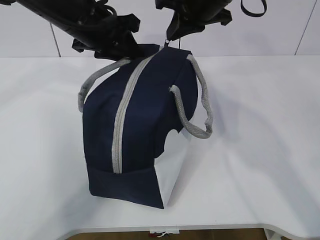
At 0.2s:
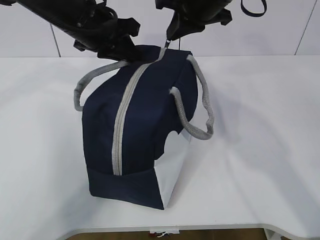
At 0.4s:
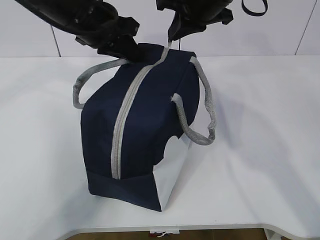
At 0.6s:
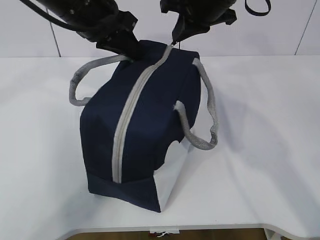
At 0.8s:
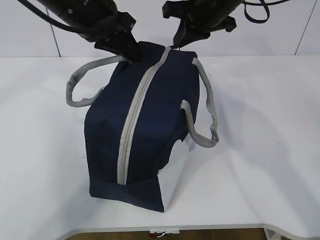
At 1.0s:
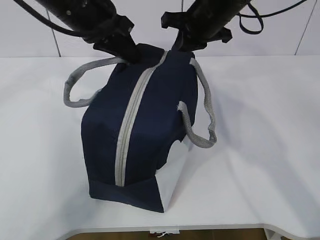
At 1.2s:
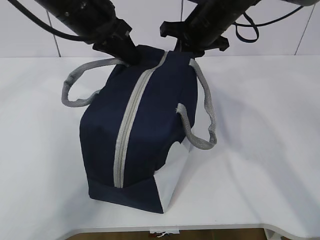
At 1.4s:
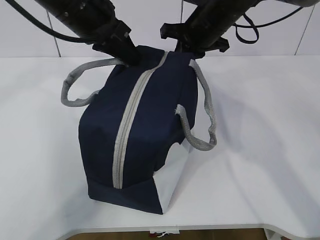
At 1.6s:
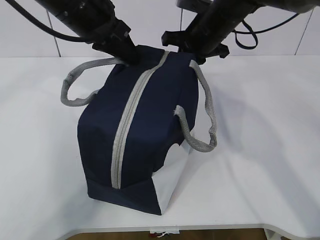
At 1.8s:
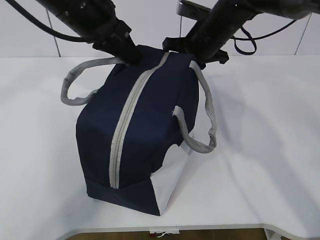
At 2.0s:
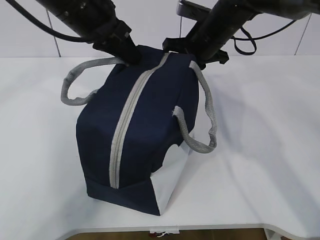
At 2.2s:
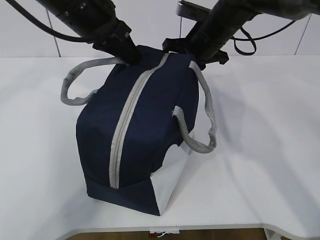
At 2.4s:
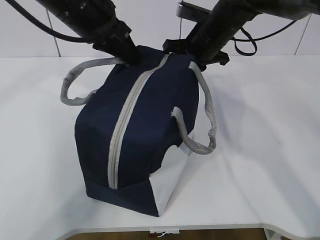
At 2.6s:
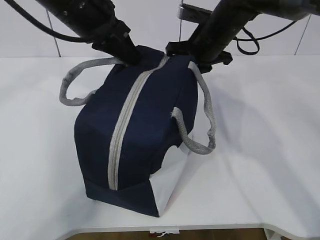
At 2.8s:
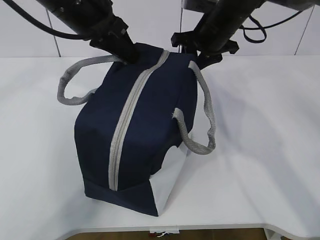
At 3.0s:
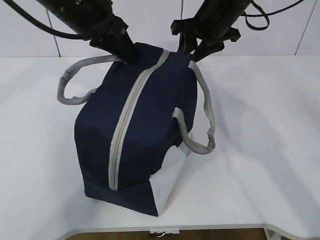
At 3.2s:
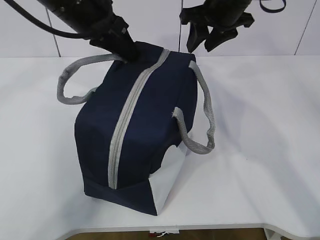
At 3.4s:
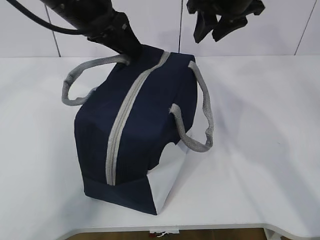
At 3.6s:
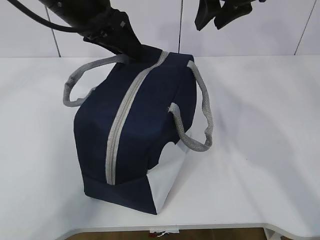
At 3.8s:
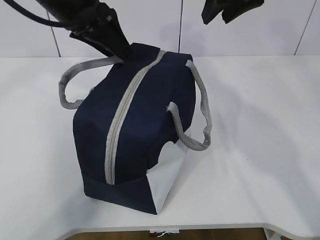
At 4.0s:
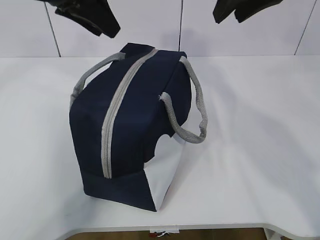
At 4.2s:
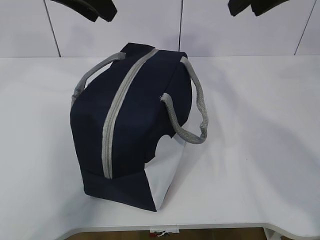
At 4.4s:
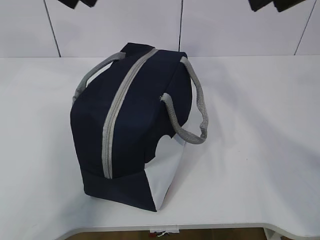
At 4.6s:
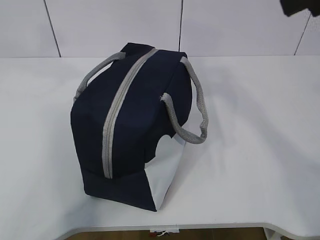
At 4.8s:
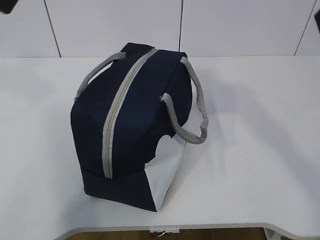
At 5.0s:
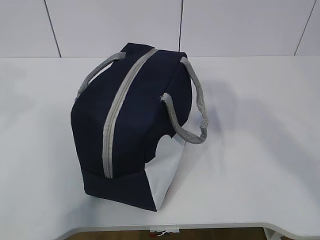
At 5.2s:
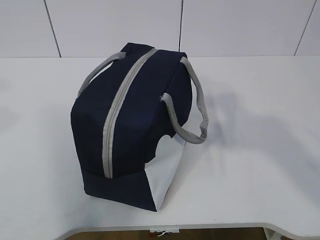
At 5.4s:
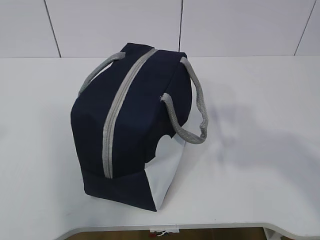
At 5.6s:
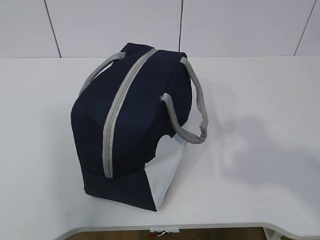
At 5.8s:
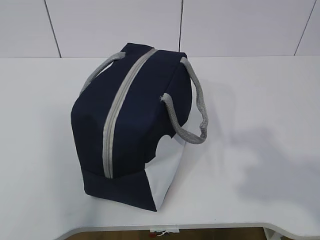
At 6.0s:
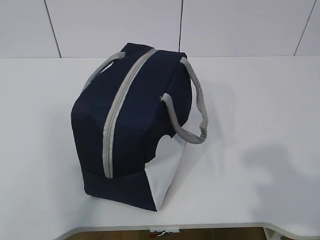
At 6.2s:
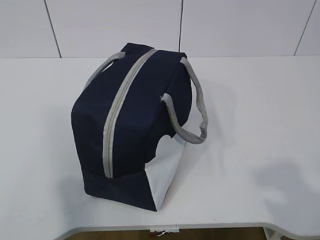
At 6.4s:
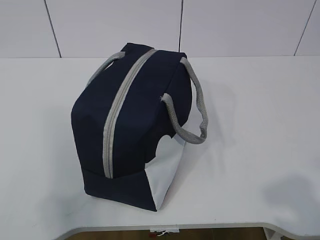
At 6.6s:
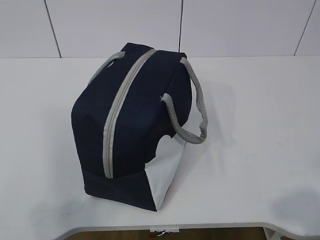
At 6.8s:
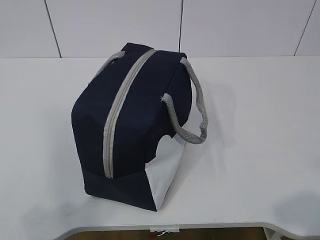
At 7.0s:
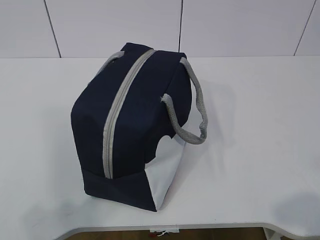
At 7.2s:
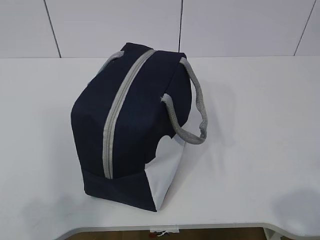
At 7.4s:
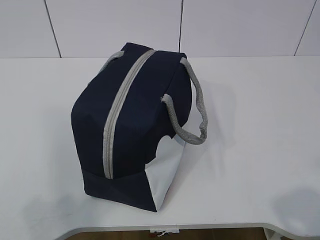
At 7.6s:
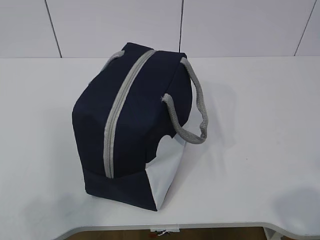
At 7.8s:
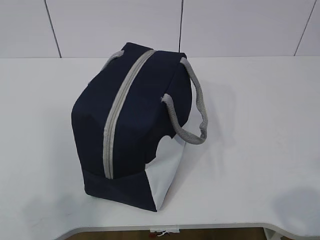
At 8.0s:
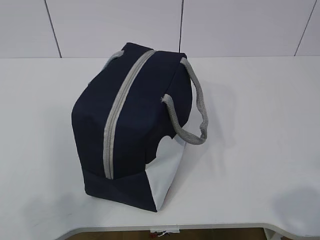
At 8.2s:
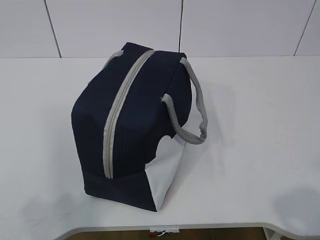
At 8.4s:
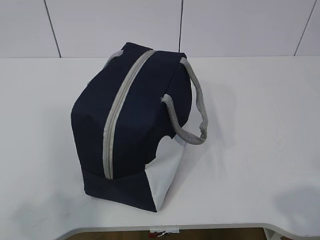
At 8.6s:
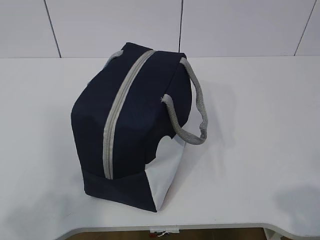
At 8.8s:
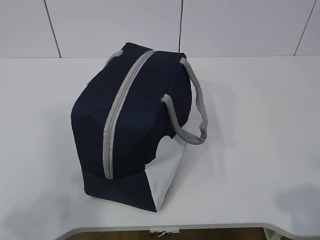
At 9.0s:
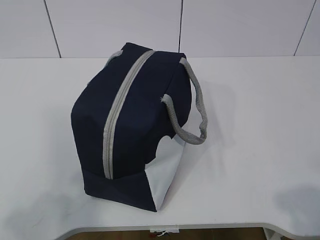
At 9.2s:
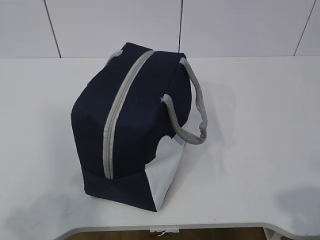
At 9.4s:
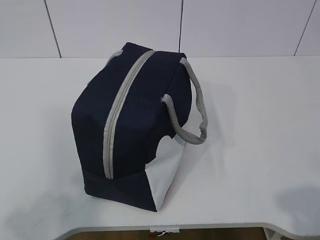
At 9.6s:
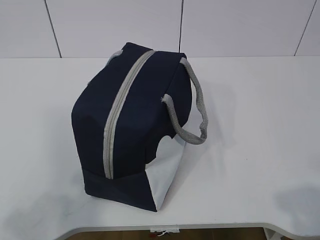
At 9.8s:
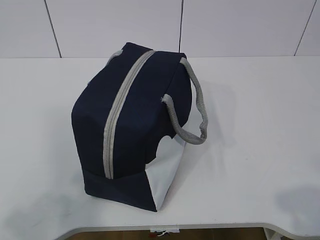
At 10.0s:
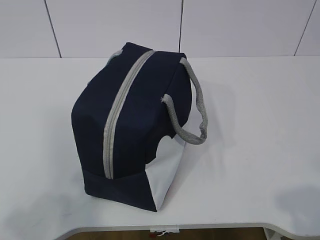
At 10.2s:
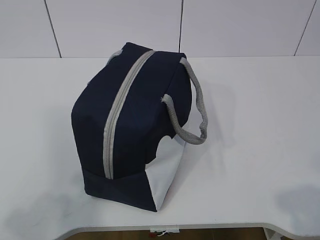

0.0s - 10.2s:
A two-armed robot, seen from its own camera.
0.0s - 1.4s: The right gripper travels downward by some 5 cm, while the left gripper closes its fingers.
1.4s - 3.0s: The right gripper opens.
3.0s - 4.4s: The right gripper is displaced backward and upward by roughly 25 cm, while the left gripper goes some 10 cm upward and to the left, and opens.
4.4s - 5.8s: The left gripper is displaced backward and to the left by some 35 cm, while the right gripper moves backward, roughly 25 cm.
5.8s - 7.2s: The right gripper travels downward and backward by about 10 cm; the left gripper moves downward, approximately 10 cm.
8.8s - 10.2s: Neither gripper changes place.

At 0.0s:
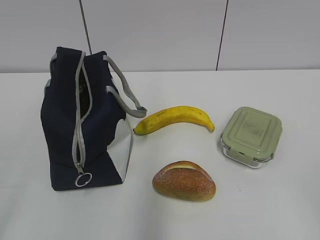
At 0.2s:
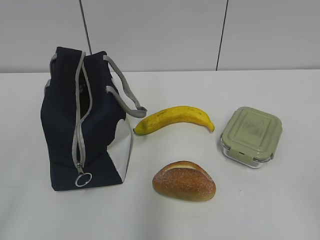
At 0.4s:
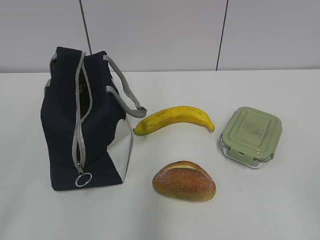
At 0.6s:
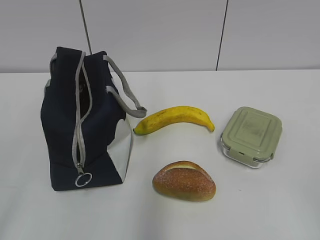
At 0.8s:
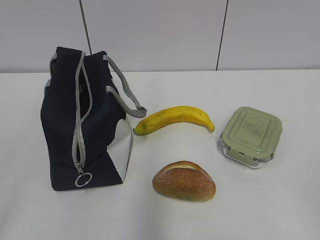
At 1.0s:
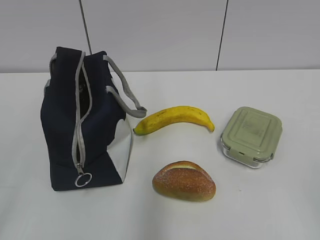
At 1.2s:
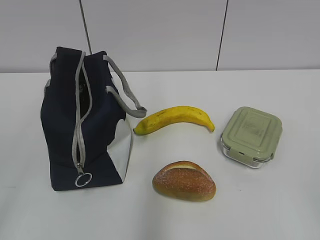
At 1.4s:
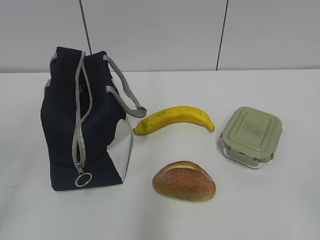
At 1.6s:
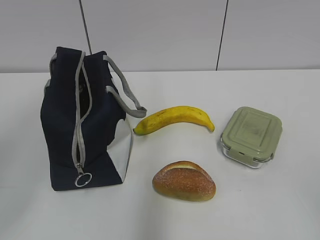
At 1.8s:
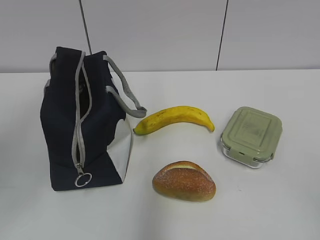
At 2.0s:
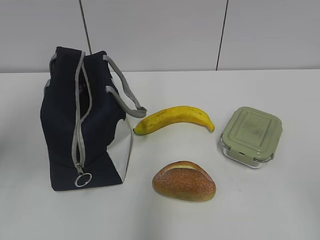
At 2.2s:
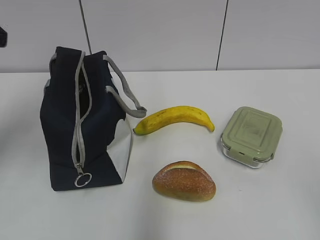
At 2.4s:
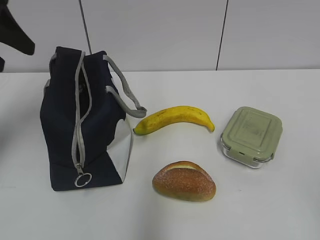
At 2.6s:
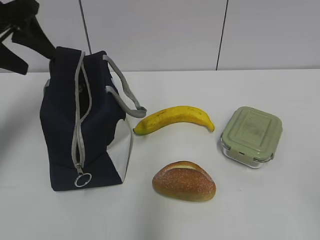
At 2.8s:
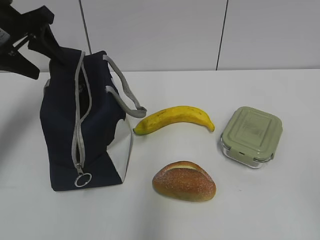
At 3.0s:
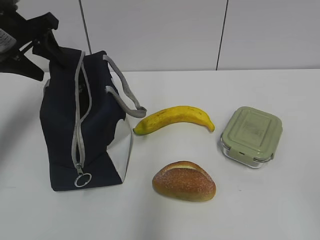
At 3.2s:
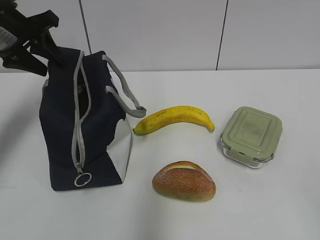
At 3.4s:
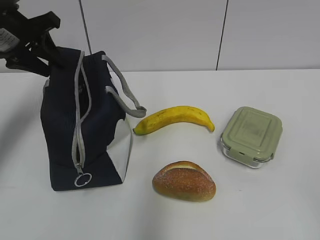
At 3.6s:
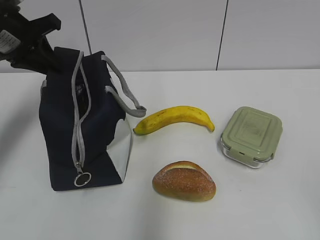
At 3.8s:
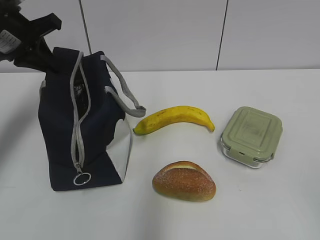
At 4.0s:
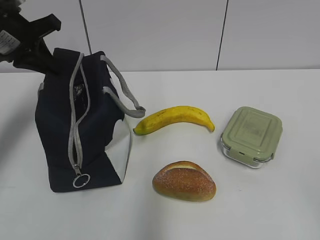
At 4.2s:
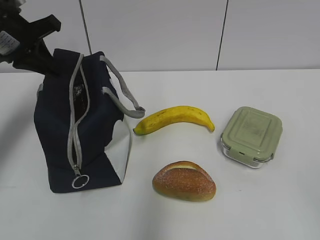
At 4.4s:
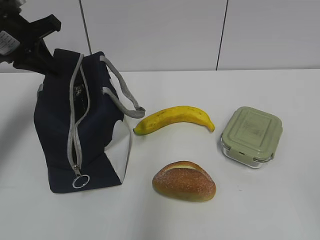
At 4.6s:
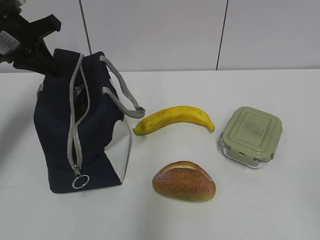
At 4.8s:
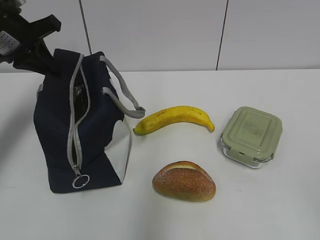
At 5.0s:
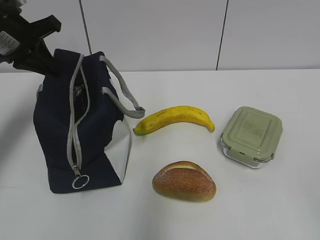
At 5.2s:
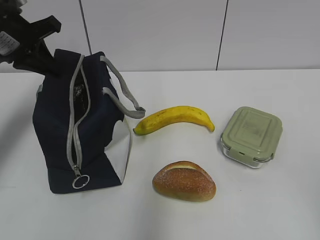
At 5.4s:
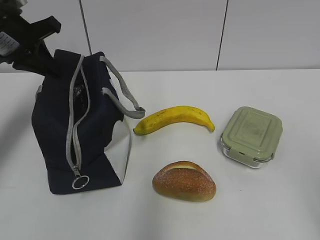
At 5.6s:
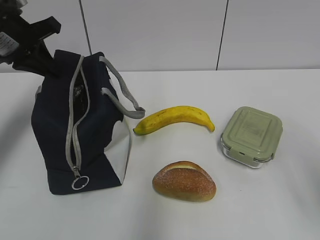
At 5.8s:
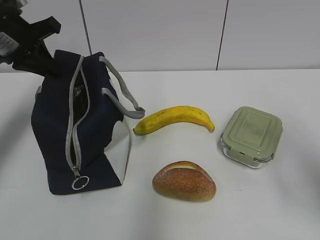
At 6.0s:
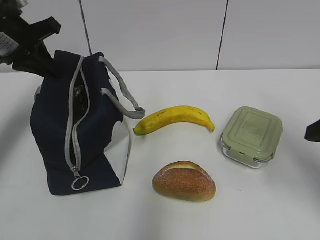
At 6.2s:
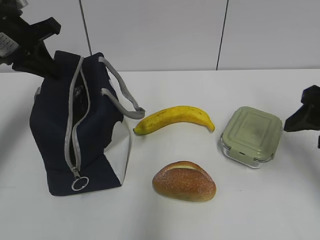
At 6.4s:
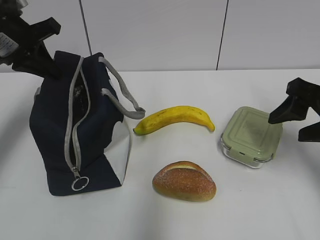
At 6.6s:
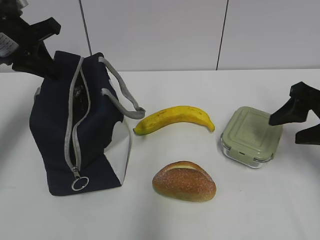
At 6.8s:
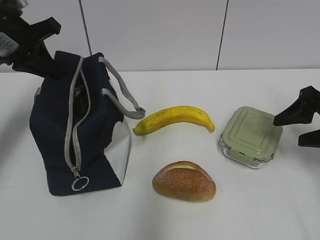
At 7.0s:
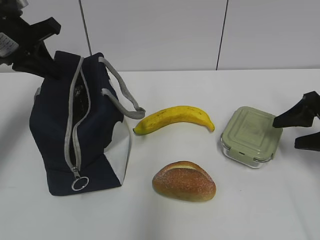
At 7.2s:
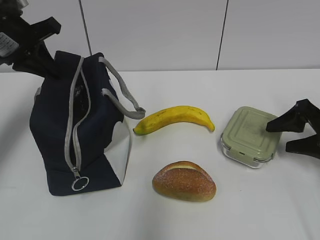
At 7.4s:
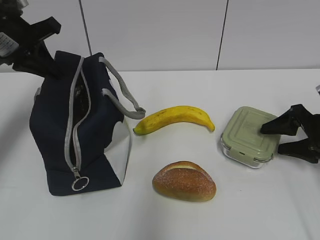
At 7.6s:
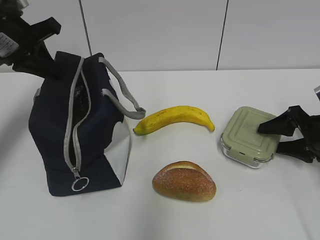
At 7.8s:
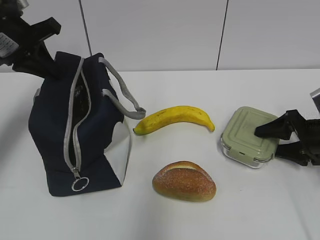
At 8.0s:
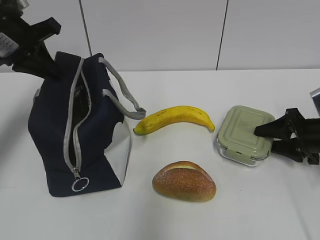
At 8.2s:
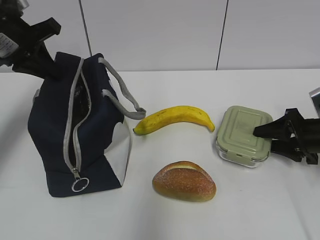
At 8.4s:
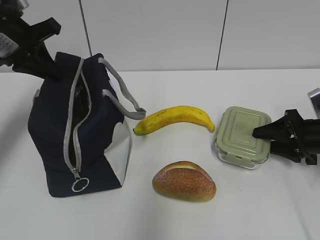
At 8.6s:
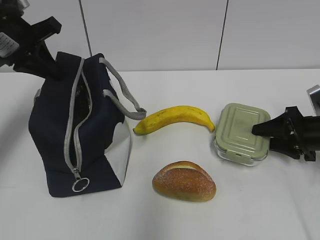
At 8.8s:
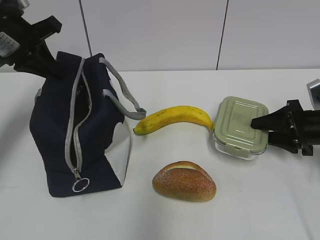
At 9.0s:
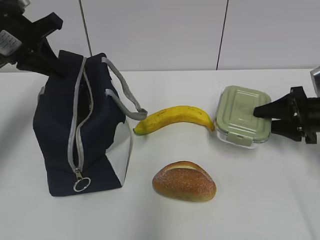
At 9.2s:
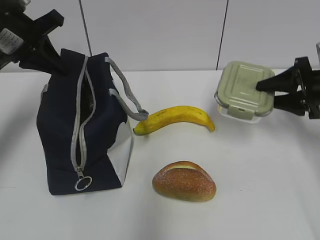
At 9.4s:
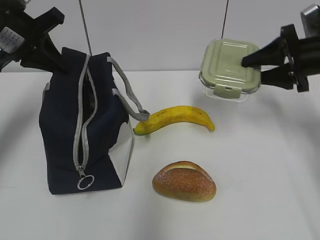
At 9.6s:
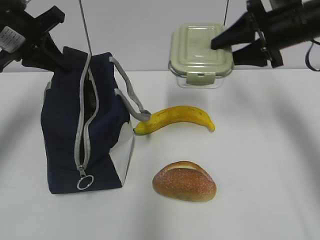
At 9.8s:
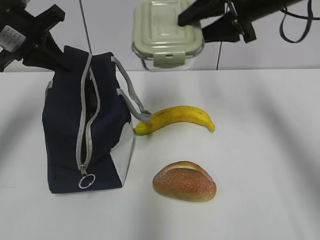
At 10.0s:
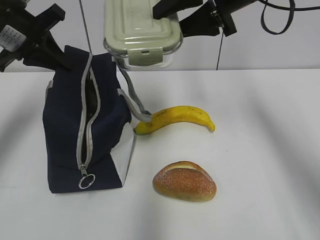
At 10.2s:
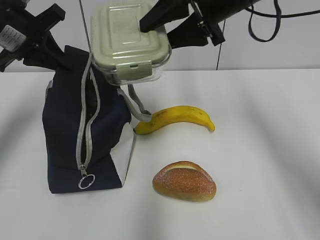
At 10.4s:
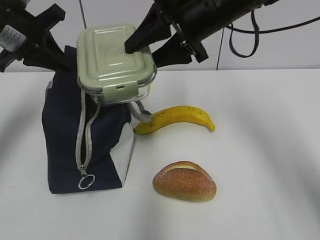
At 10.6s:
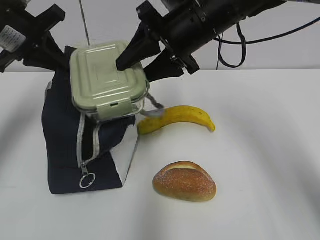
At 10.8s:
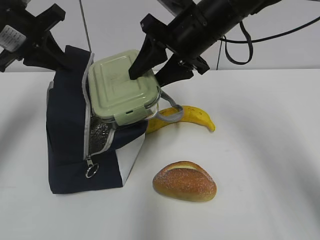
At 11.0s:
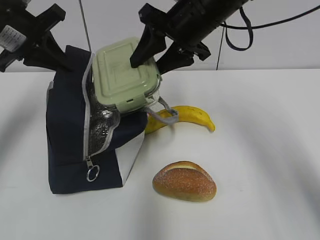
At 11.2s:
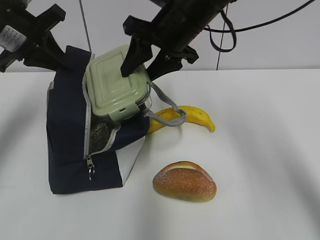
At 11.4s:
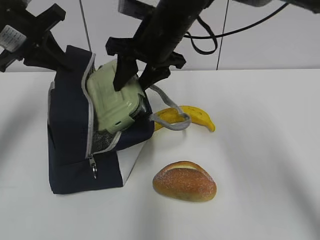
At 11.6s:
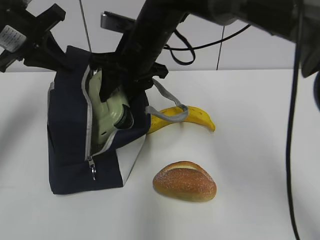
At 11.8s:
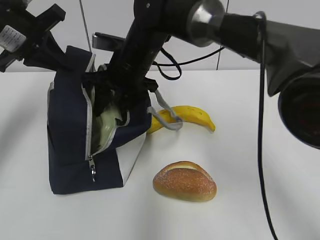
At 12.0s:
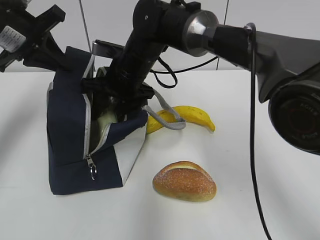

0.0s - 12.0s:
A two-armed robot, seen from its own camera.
1.6s - 3.0s: The left gripper is displaced forward by about 30 cm.
3.0s - 4.4s: The left gripper closes its fingers.
4.4s - 6.0s: The right gripper shifts about 20 cm forward.
6.0s - 7.6s: The right gripper moves downward, forward and to the right, about 20 cm.
7.6s - 9.0s: The grippers make only small movements.
9.0s - 10.4s: The right gripper moves to the left and upward, approximately 30 cm.
10.4s - 12.0s: The right gripper goes about 15 cm to the left and downward.
